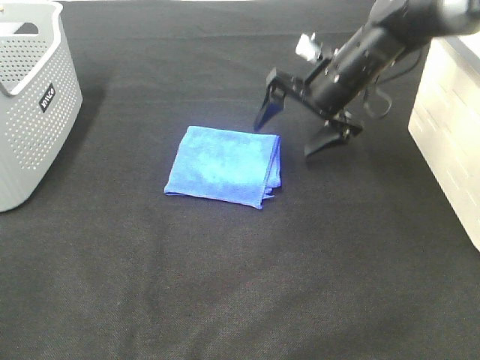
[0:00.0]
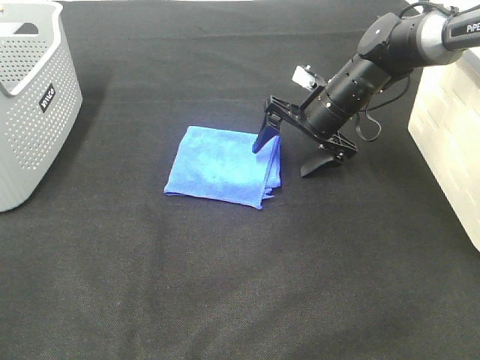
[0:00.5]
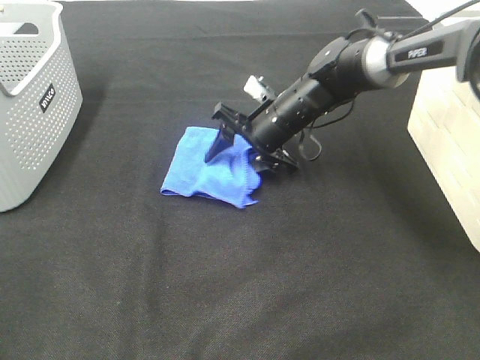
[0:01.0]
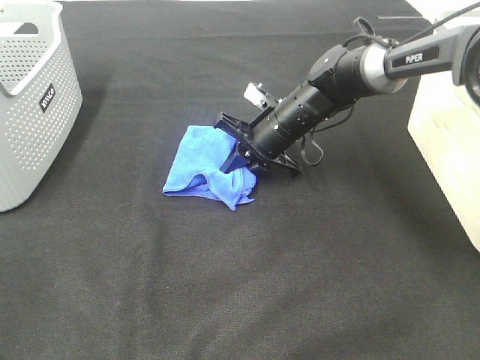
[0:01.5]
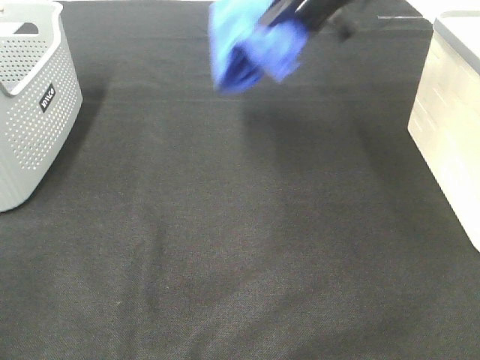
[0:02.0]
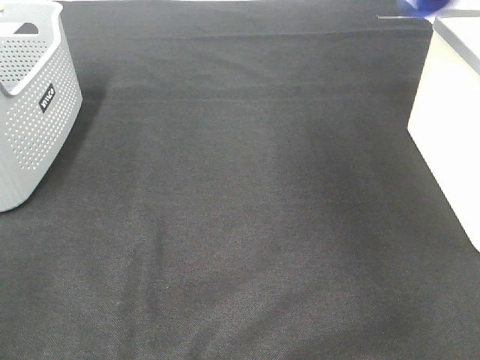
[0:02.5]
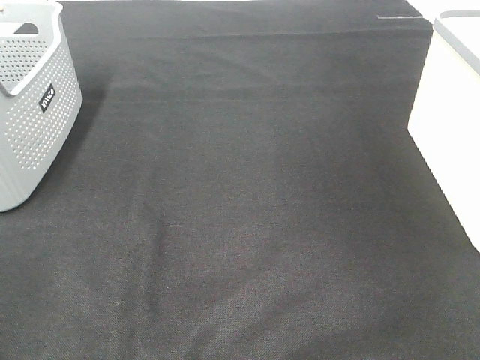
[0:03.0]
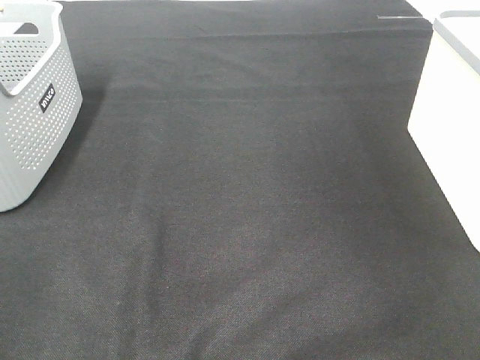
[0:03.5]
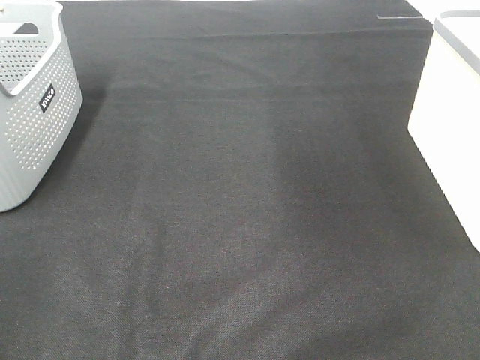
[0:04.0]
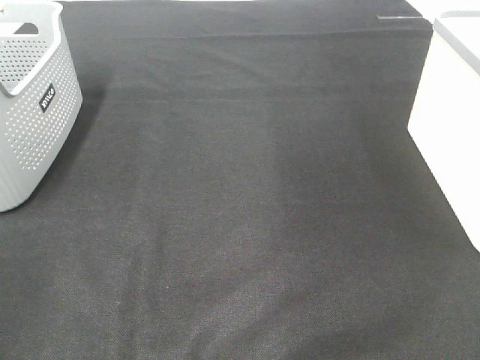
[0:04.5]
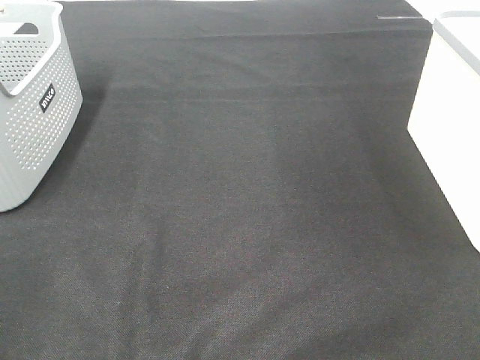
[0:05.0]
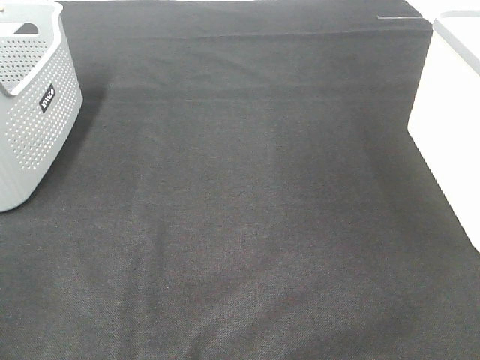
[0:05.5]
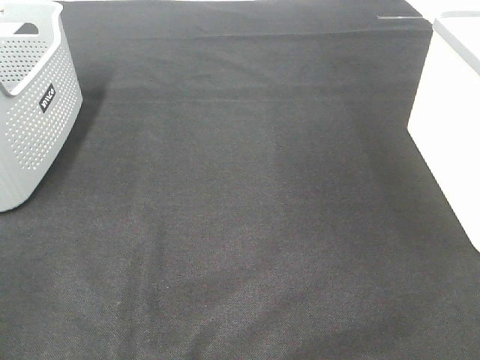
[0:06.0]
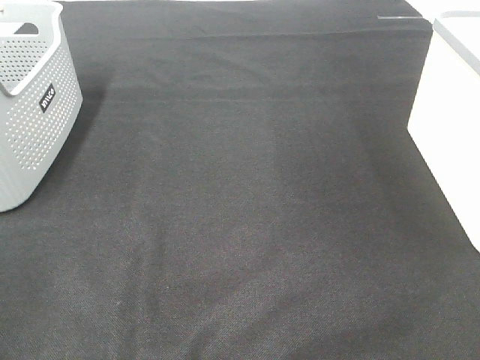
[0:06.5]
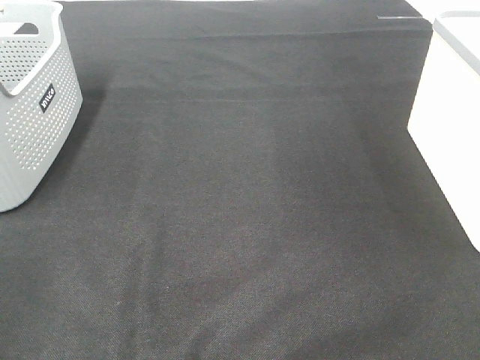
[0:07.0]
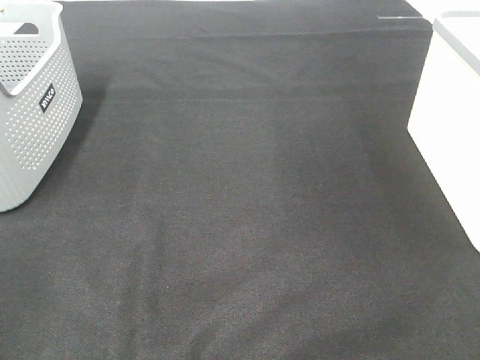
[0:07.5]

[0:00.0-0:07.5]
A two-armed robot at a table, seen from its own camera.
Step, 0:02.0 to 0:03.0: Right hand: place the blue towel in right basket.
0:00.0 to 0:02.0: The right gripper travels upward by approximately 15 cm, and closes up.
0:02.0 to 0:04.0: The right gripper heads to the right, upward and backward, covering some 20 cm, and opens up.
0:05.5 to 0:07.5: Neither gripper changes place.

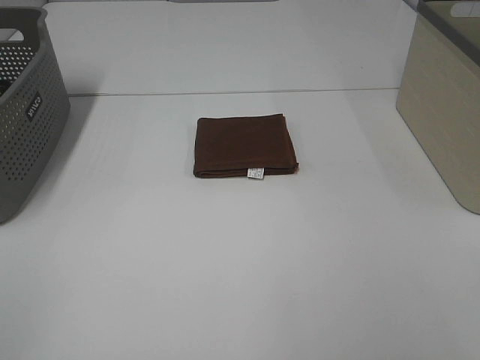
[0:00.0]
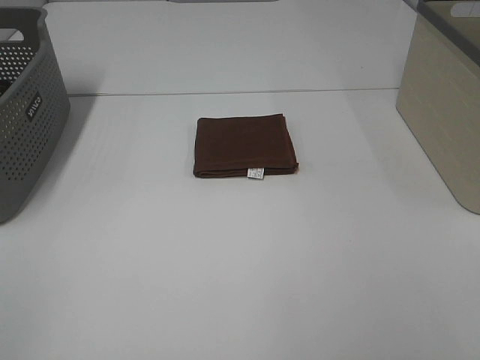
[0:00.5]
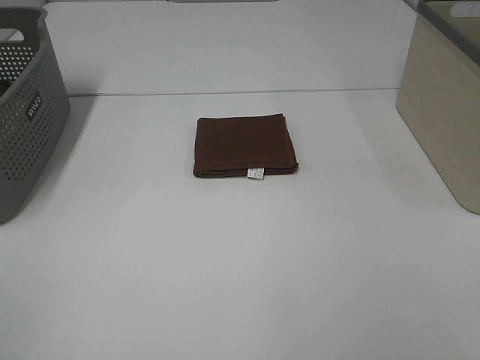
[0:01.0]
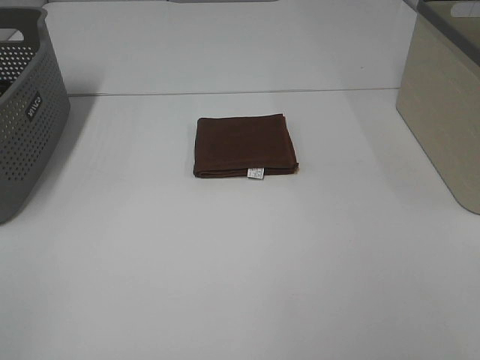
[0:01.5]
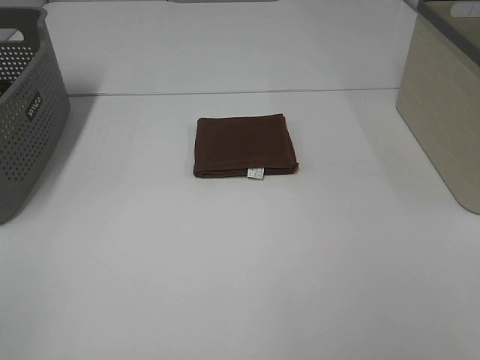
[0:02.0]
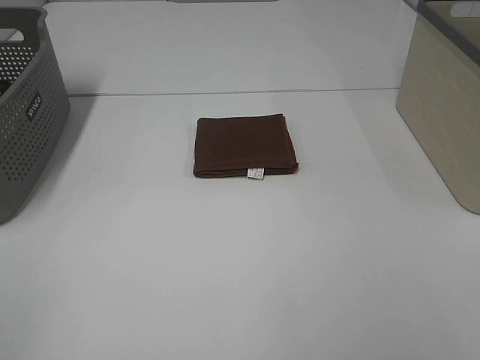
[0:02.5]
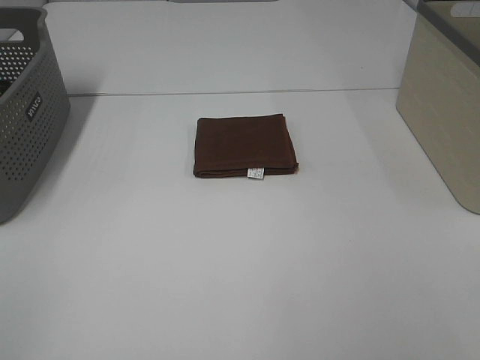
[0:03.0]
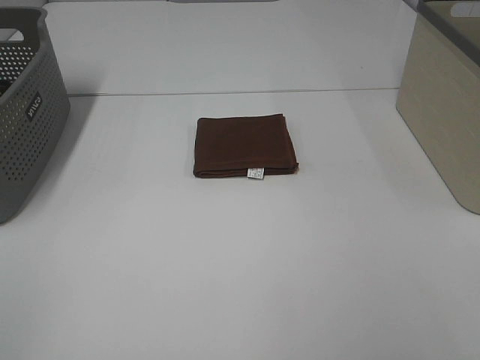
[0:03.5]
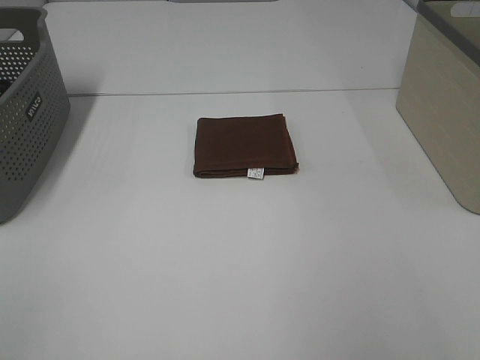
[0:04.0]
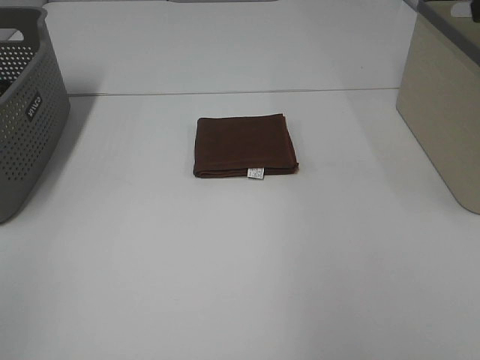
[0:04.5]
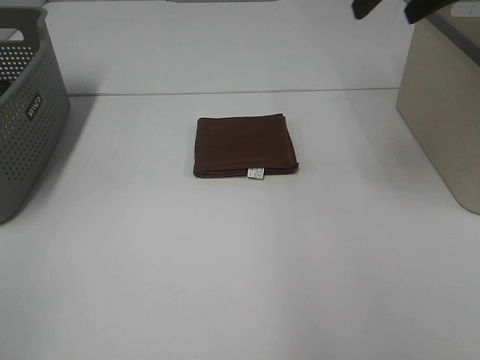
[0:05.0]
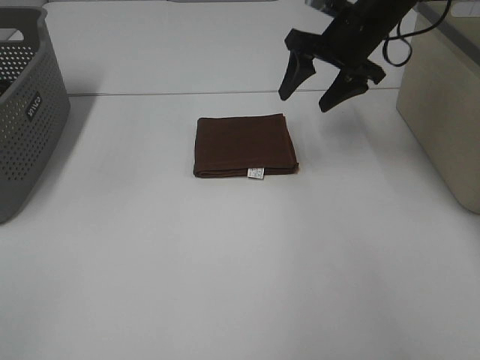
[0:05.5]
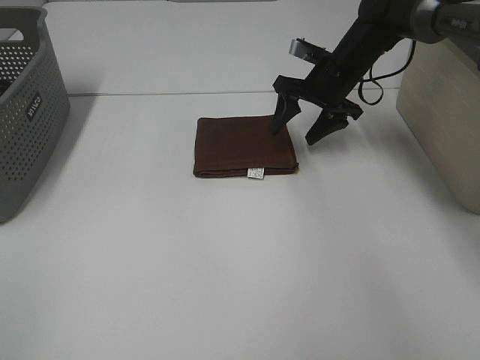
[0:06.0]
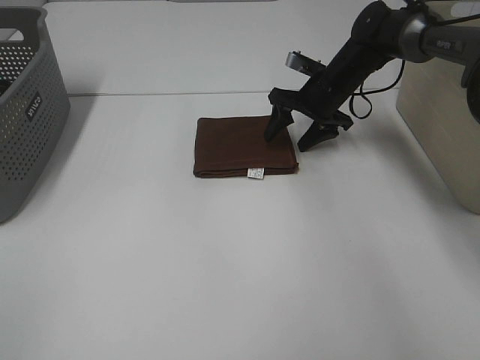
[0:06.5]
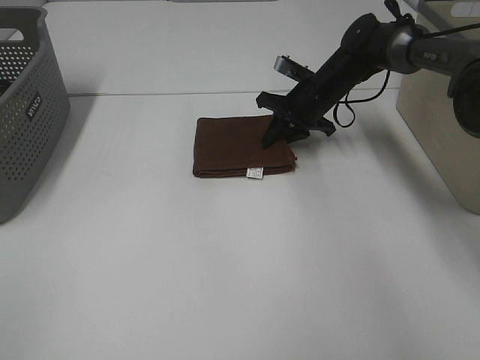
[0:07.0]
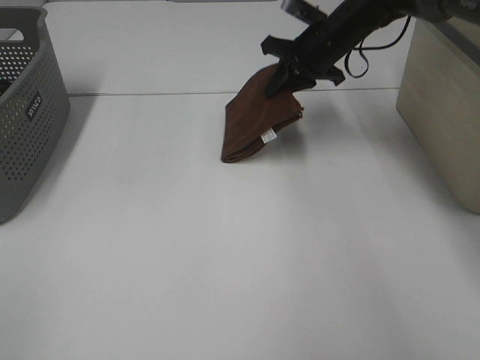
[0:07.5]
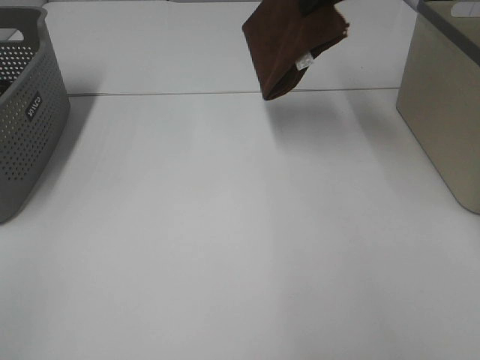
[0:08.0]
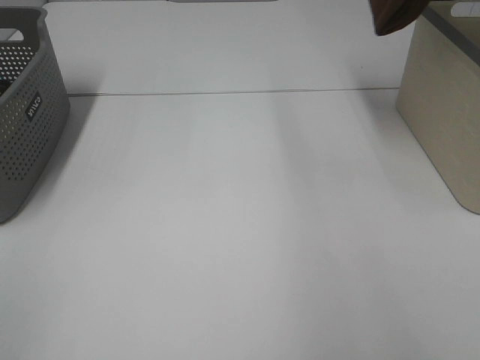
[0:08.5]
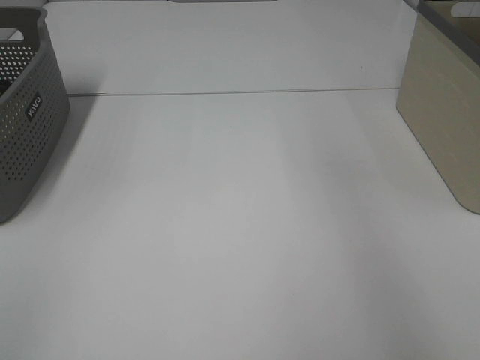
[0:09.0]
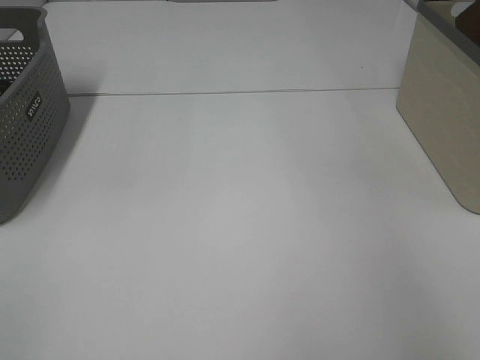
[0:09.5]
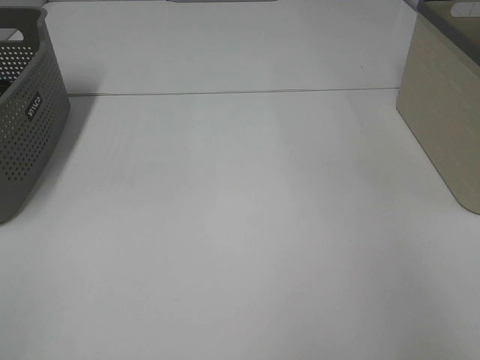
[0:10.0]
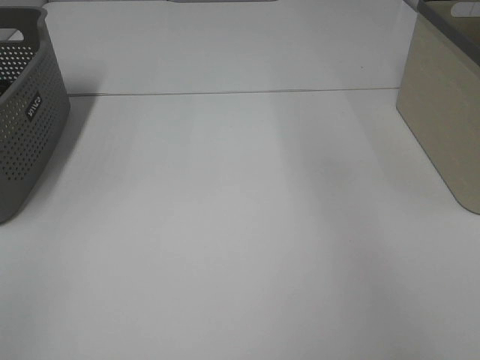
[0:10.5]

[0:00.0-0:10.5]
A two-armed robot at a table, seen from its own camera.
Step, 0:00.0 to 0:07.0: Right hand: grab the folded brown towel.
Step, 0:07.5 to 0:10.0: Right hand: place the brown towel in right basket.
0:00.0 to 0:02.0: Both grippers stay about where they are.
0:04.0 to 0:06.5: The right gripper moves forward and downward, some 50 cm.
0:06.5 to 0:08.5: The right gripper is displaced upward by about 35 cm, and closes up.
0:08.5 to 0:10.5: The right gripper moves to the right, some 5 cm, and opens up.

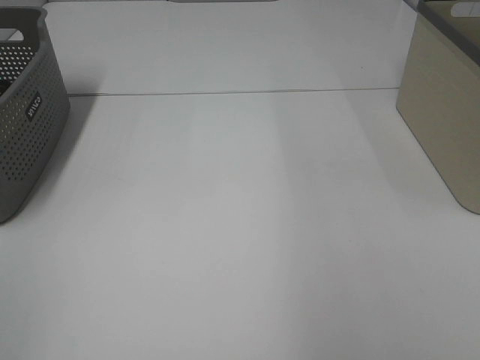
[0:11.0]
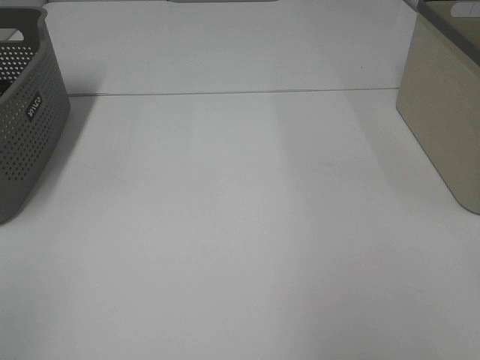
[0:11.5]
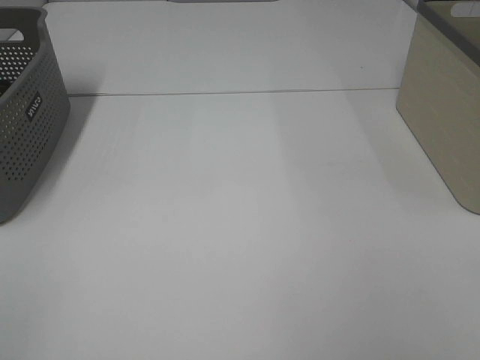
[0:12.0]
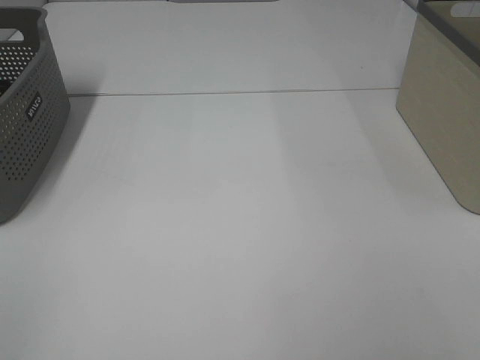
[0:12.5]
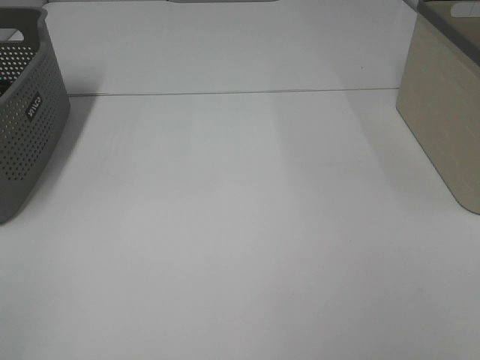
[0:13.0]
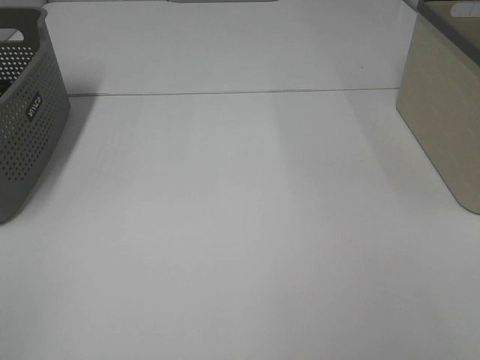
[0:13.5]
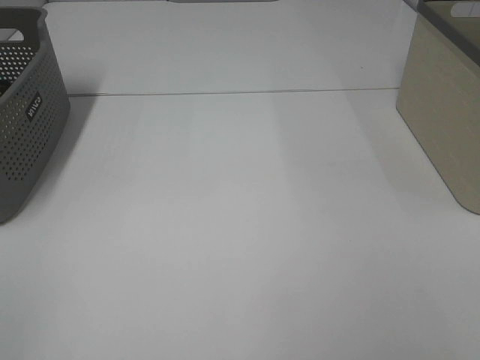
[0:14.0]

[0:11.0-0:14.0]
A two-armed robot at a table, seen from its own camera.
0:12.5 to 0:14.0: The two grippers keep their place.

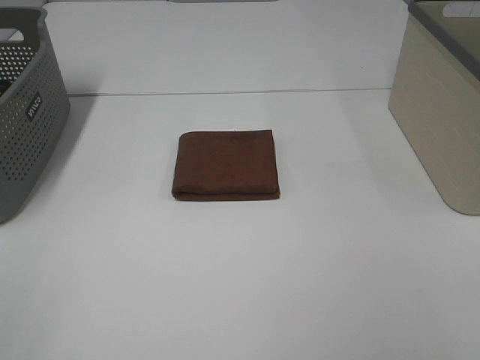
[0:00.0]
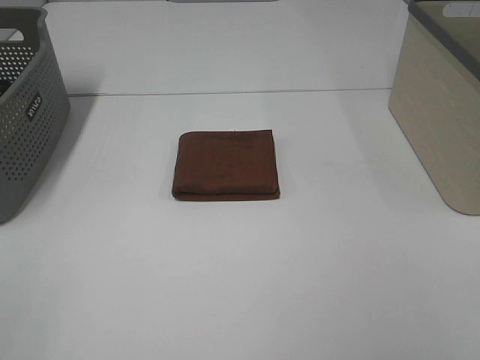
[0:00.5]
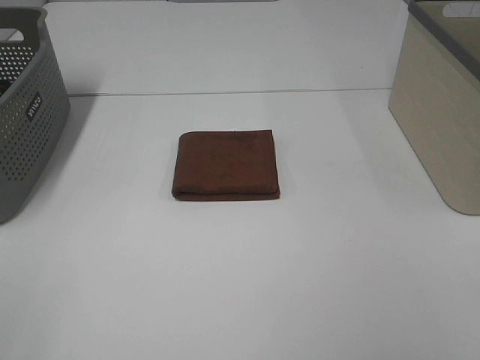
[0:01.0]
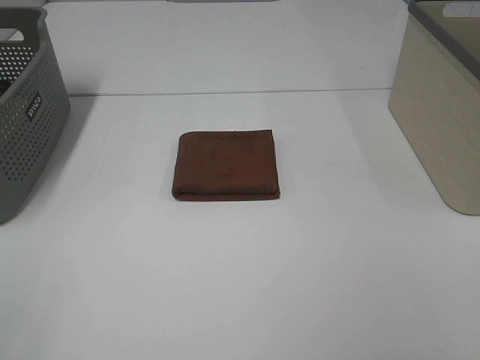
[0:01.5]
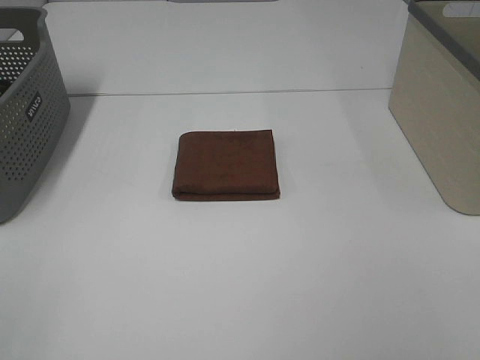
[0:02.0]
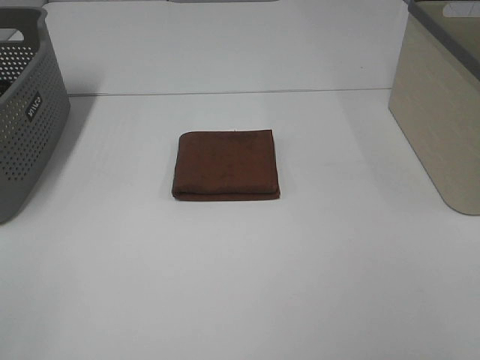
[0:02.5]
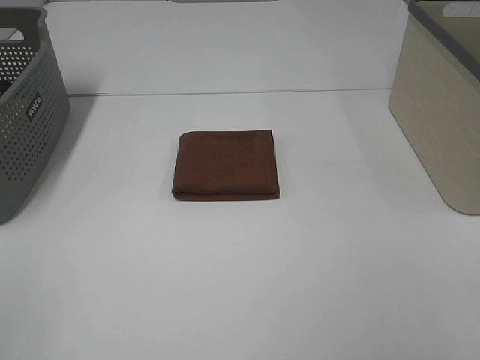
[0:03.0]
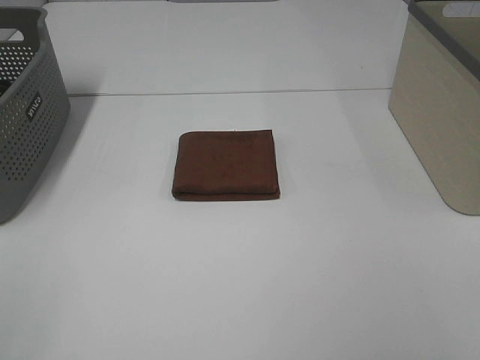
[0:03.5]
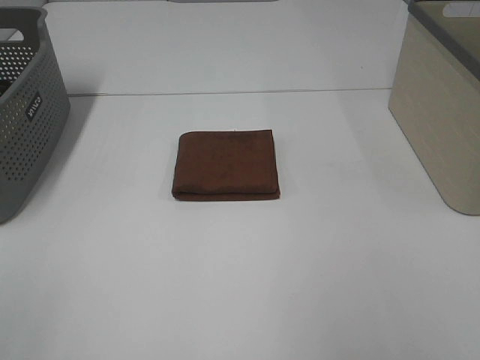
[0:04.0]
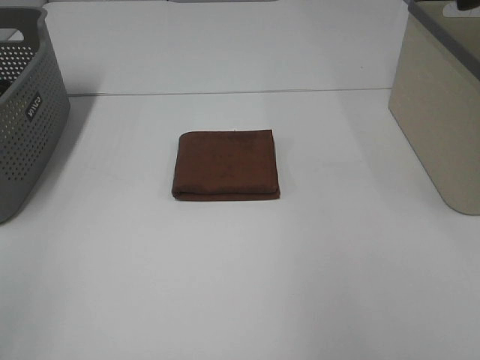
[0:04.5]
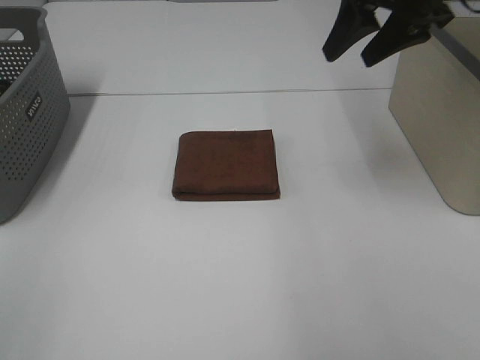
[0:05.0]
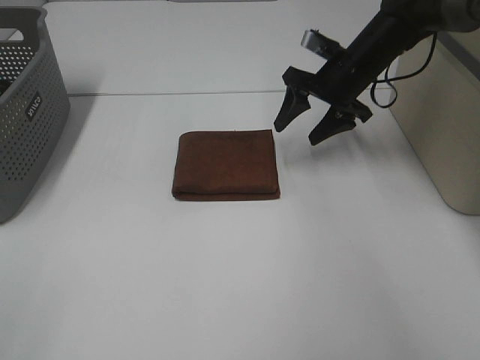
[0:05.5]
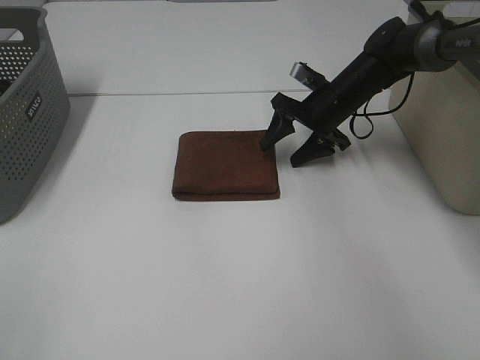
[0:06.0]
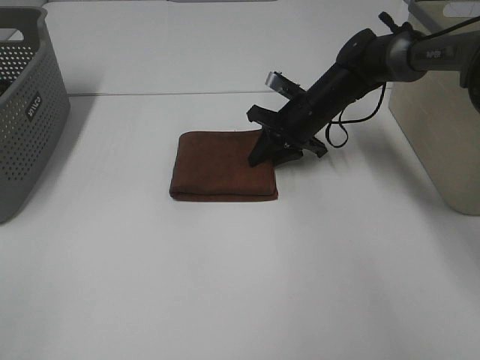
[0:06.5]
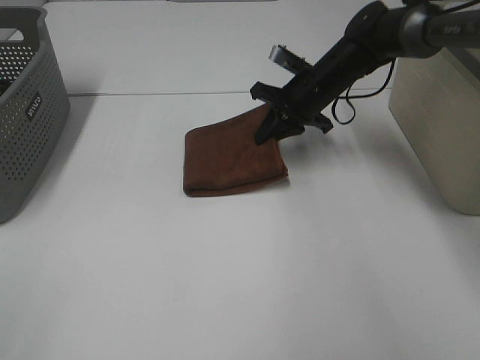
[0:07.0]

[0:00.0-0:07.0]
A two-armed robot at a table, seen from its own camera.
Step, 0:00.0 to 0:06.5: Right hand: grab the folded brown towel.
0:00.0 to 0:03.5: Both grippers stay about where they are.
0:03.5 to 0:05.0: The right gripper goes some 40 cm forward.
0:05.0 to 0:07.0: The right gripper heads downward, forward and to the left, covering roughly 20 cm, and closes up.
